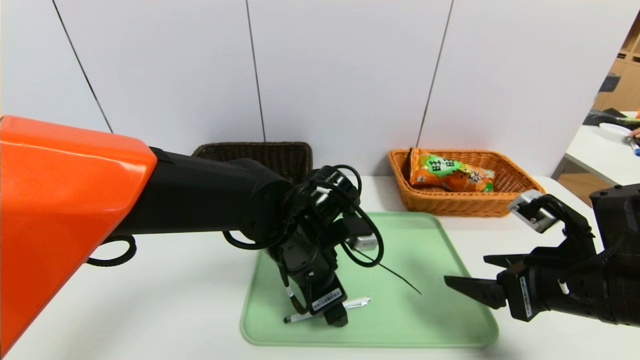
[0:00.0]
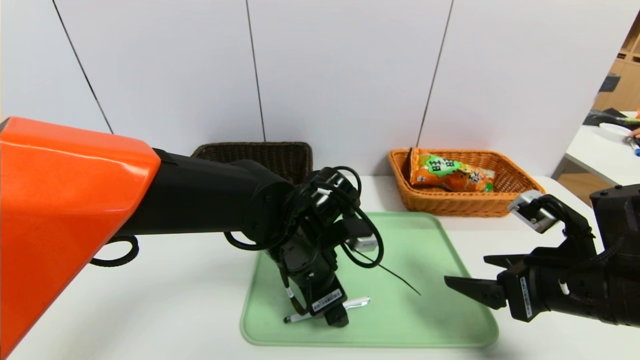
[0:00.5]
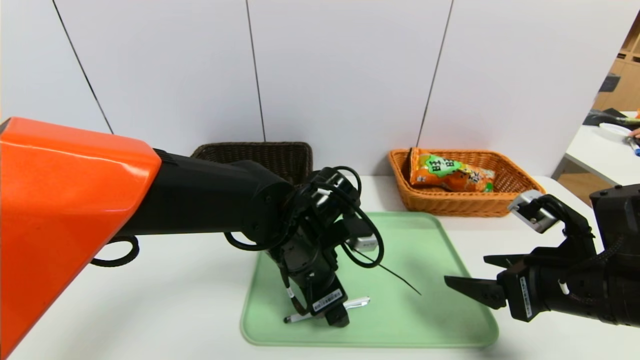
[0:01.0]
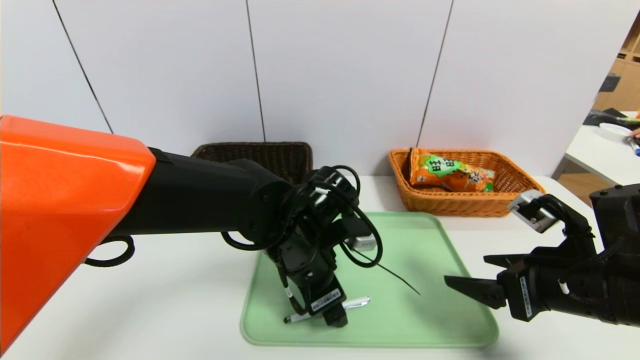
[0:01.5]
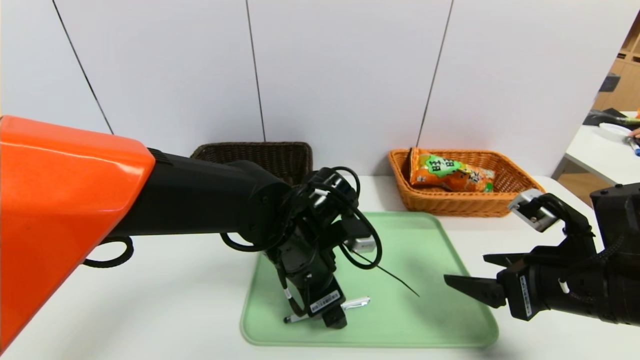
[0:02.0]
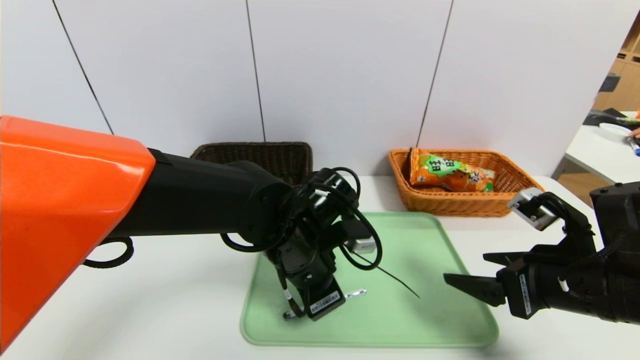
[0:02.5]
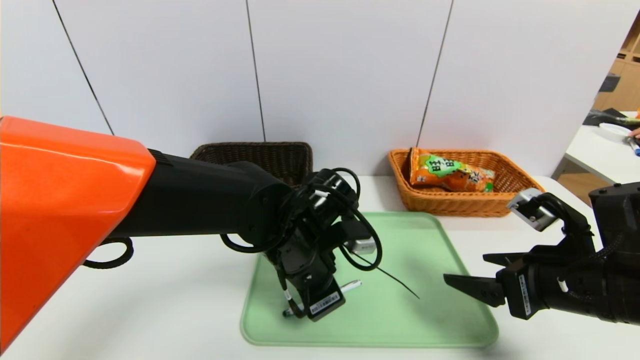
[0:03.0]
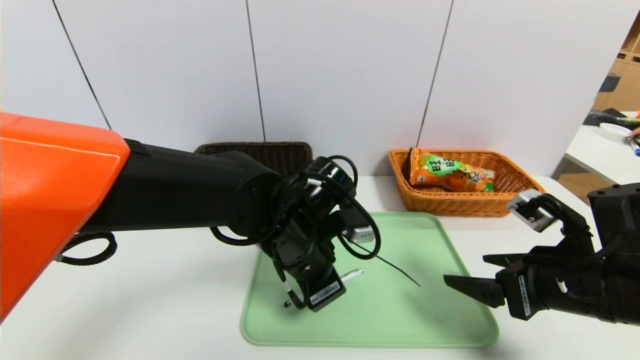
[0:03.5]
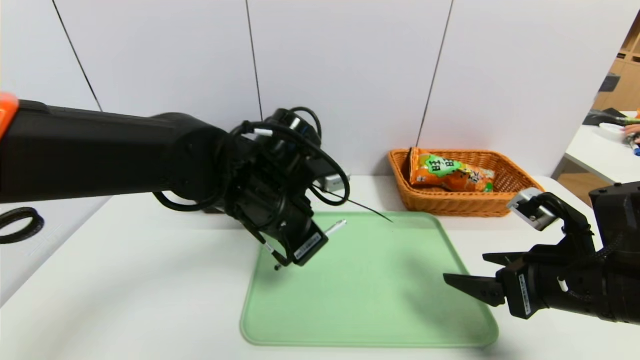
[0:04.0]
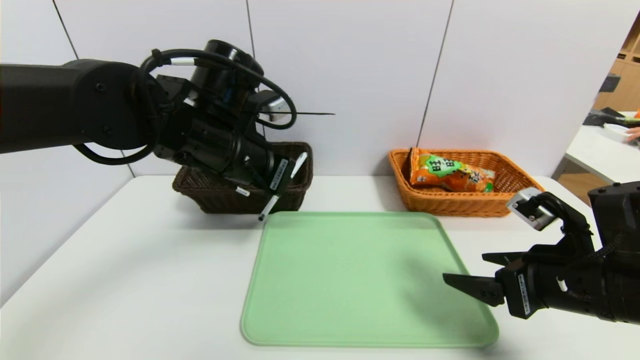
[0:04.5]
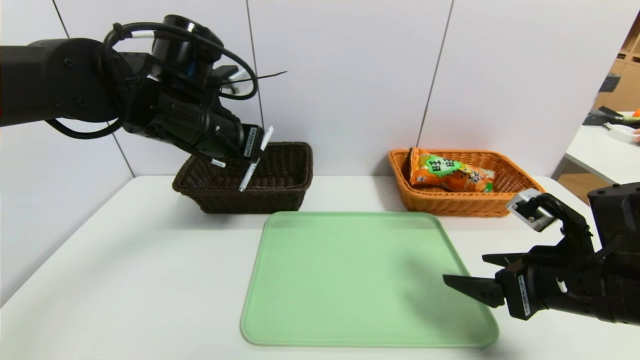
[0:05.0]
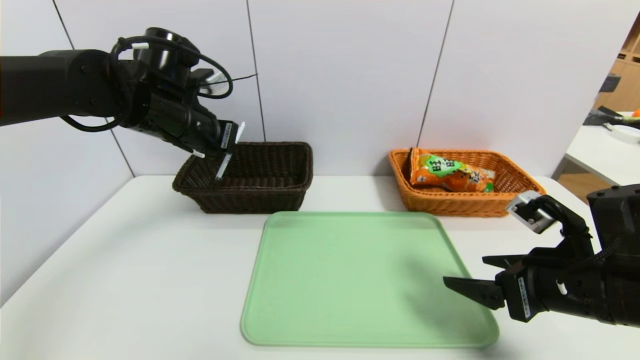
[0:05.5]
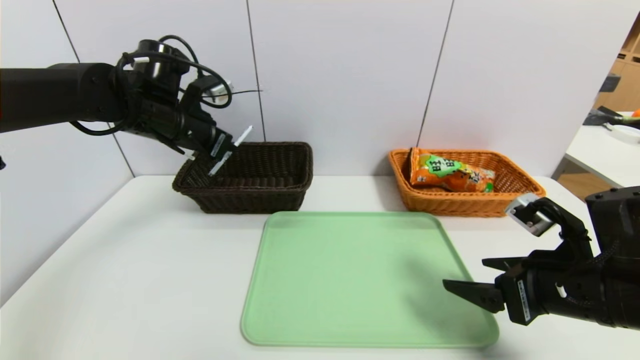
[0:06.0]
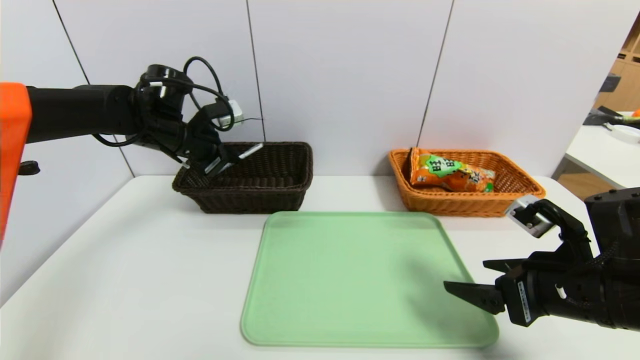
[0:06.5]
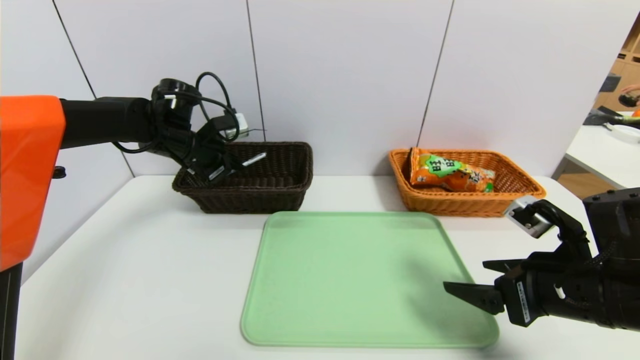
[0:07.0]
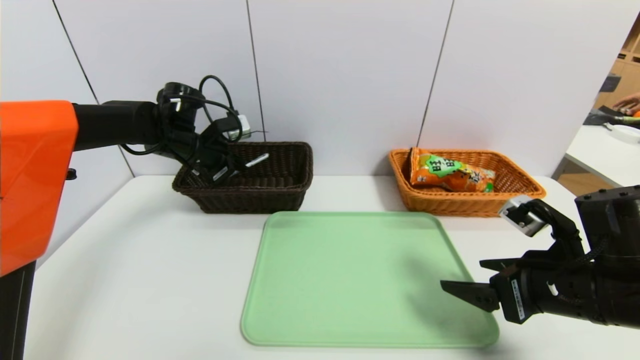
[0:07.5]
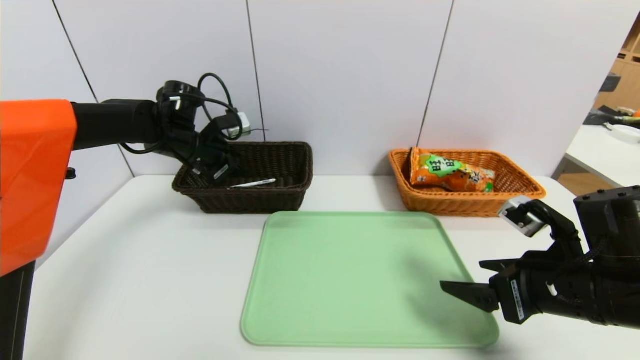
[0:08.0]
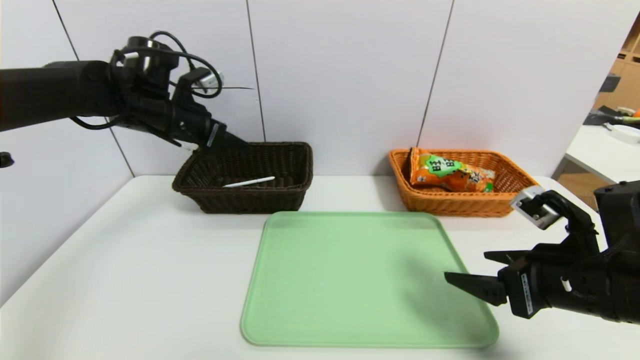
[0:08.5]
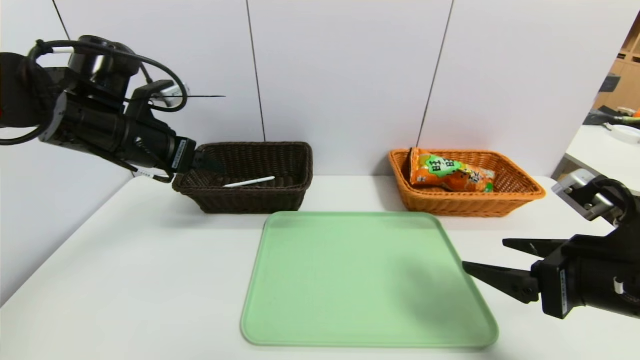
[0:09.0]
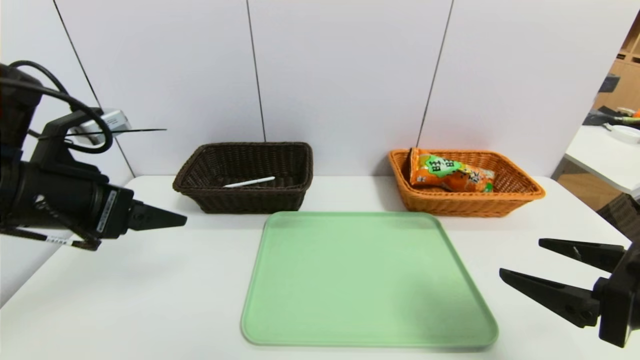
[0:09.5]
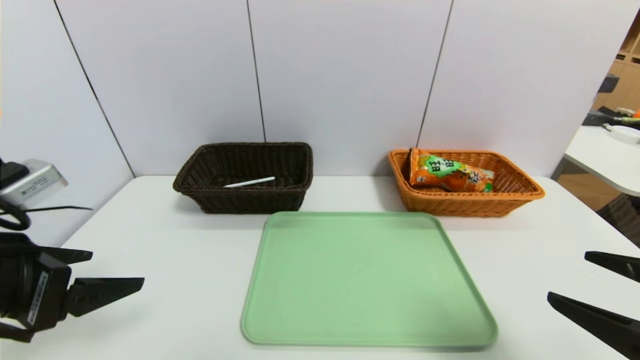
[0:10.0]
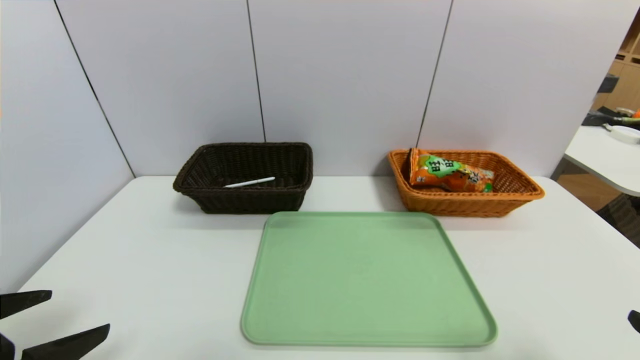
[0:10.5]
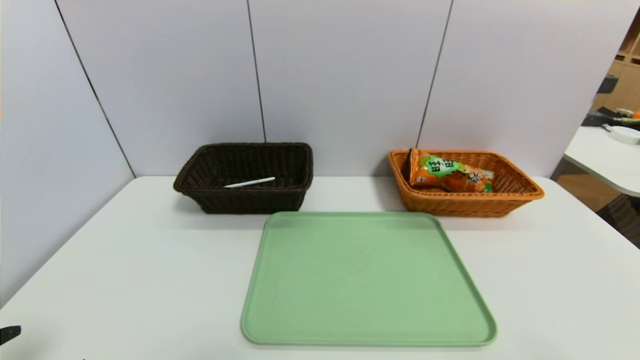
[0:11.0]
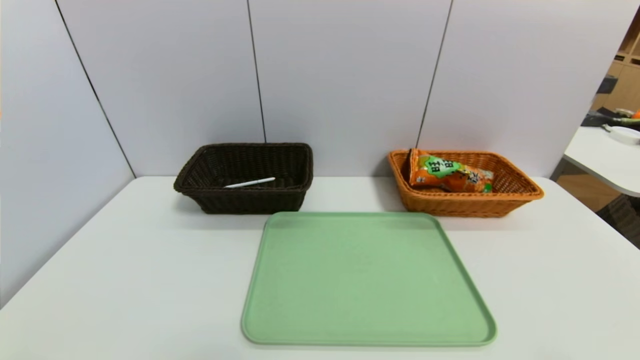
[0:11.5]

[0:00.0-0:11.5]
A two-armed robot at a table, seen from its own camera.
Task of the whole recording: place the food in the right basket with the right gripper, and place the non food items in the left basket with the left gripper.
Step, 0:00.0 to 0:08.0: Grasp the black marker and put it in the left basket.
0:00.0 to 0:02.0: Both grippers stay about where they are.
0:02.0 to 0:04.0: The left gripper goes some 5 cm upward, and closes.
0:04.0 to 0:06.0: The left gripper shifts about 20 cm to the left and forward.
0:06.0 to 0:07.5: The left gripper travels downward and forward by some 10 cm.
0:07.5 to 0:09.5: The right gripper shifts about 10 cm backward and upward. The left gripper goes some 25 cm backward, and opens its fingers.
0:09.5 to 0:11.5: The left gripper travels backward and downward by about 25 cm. The right gripper travels backward by roughly 15 cm.

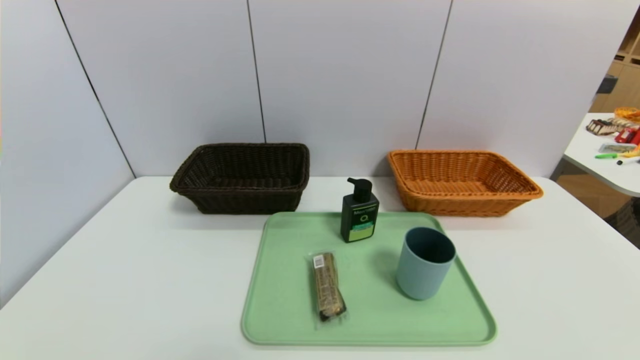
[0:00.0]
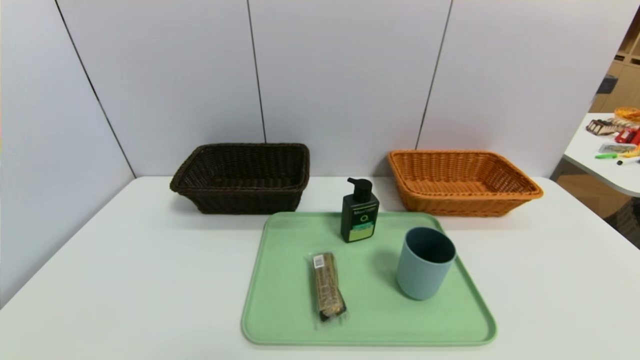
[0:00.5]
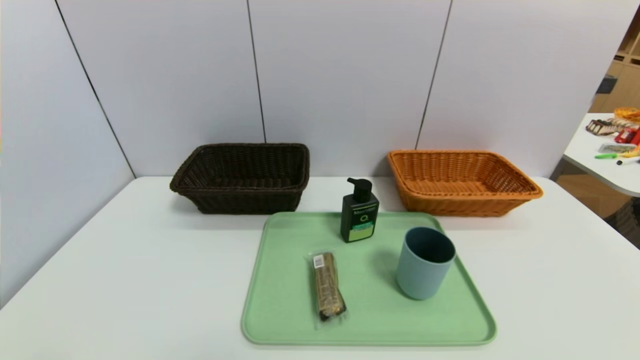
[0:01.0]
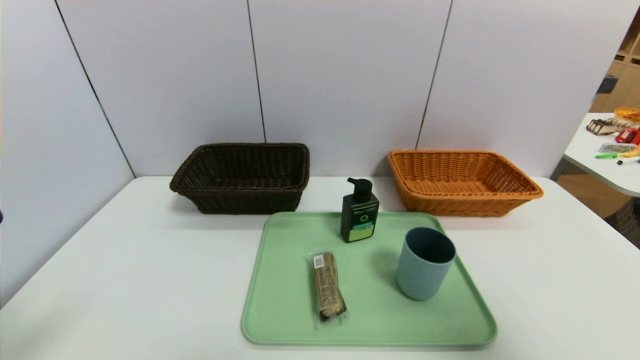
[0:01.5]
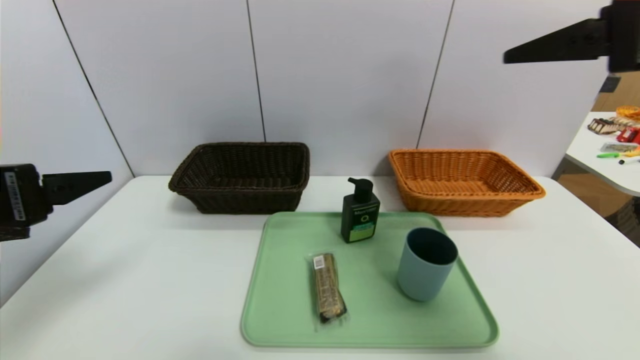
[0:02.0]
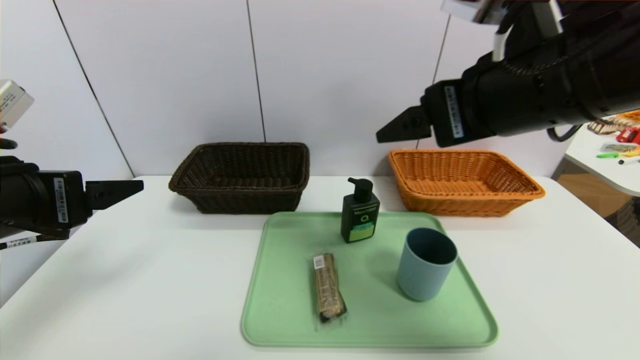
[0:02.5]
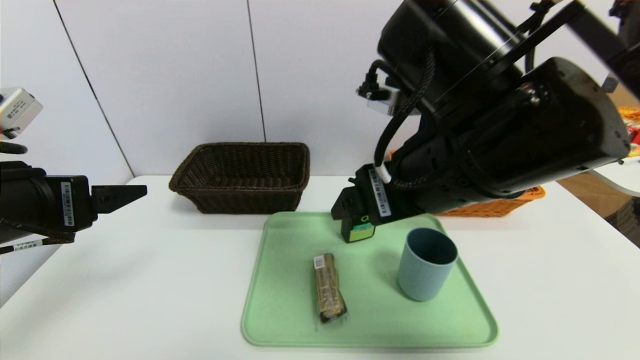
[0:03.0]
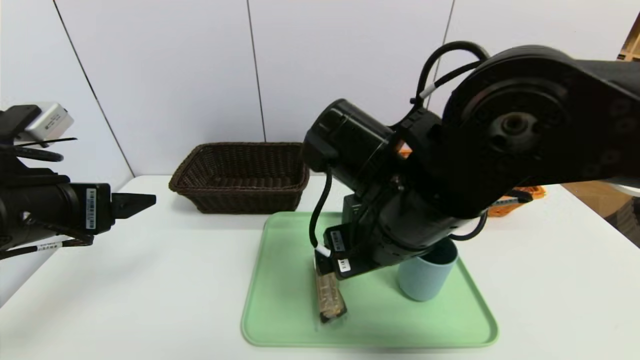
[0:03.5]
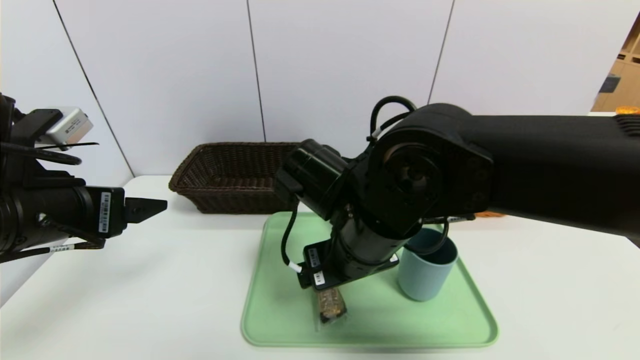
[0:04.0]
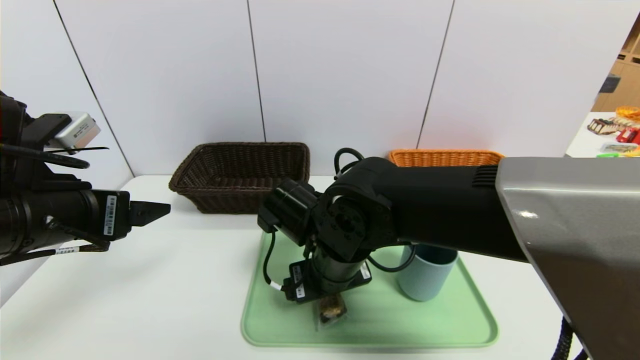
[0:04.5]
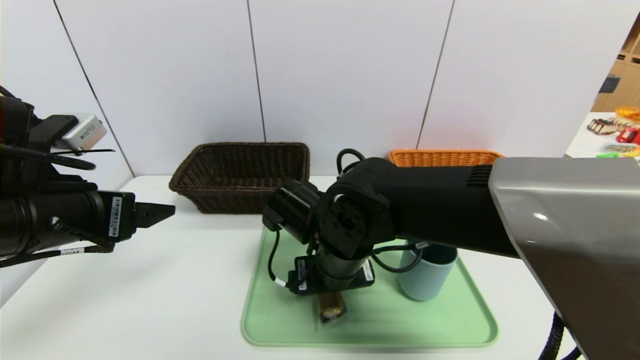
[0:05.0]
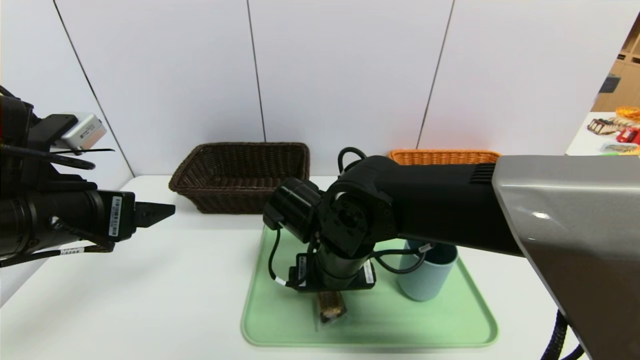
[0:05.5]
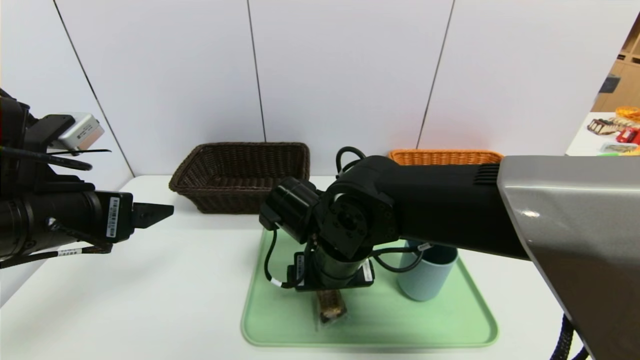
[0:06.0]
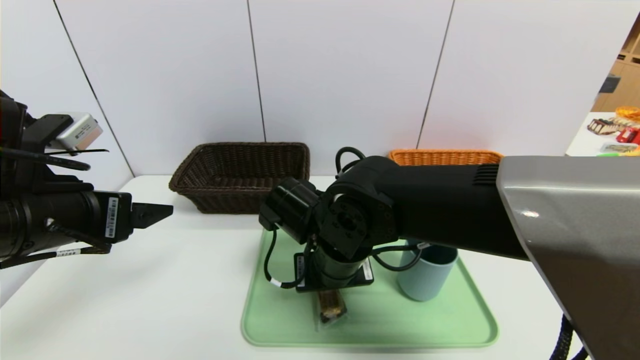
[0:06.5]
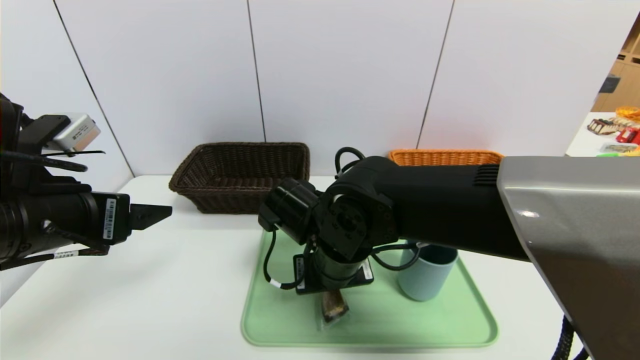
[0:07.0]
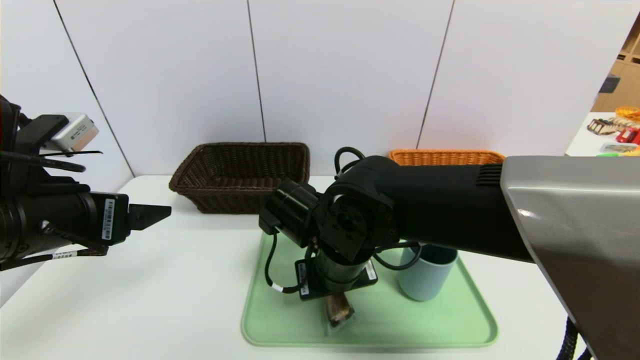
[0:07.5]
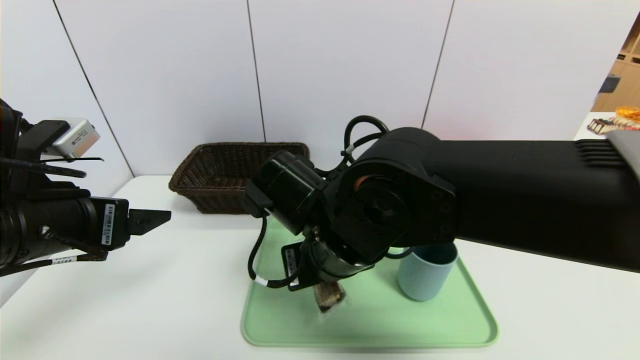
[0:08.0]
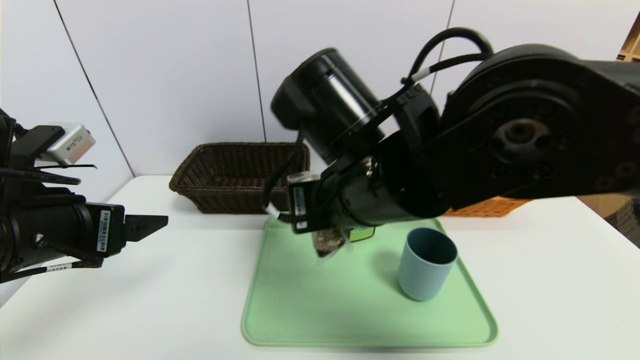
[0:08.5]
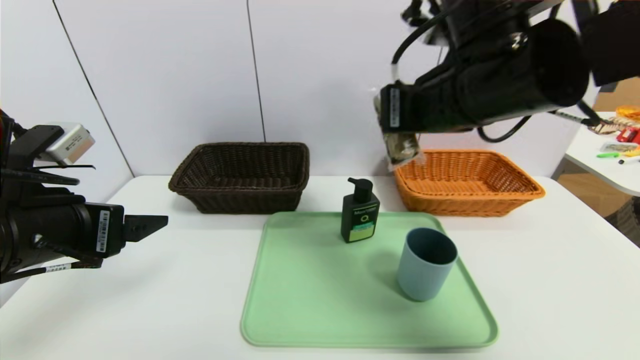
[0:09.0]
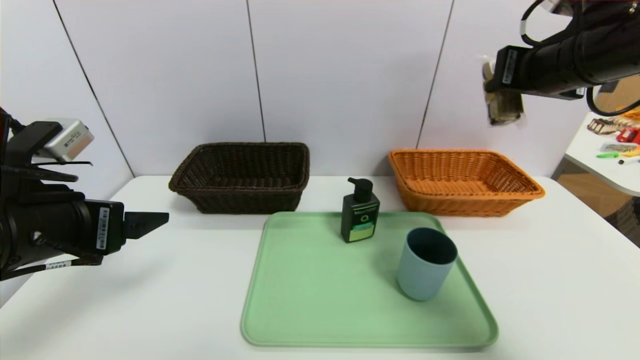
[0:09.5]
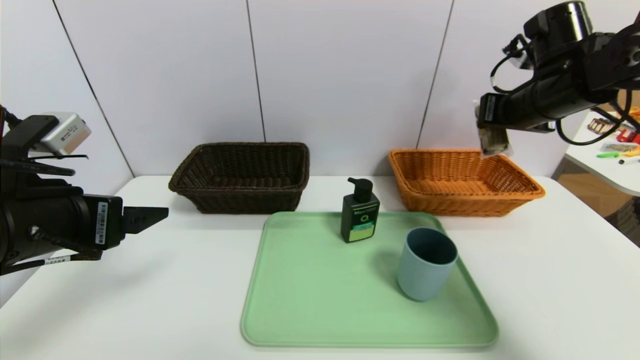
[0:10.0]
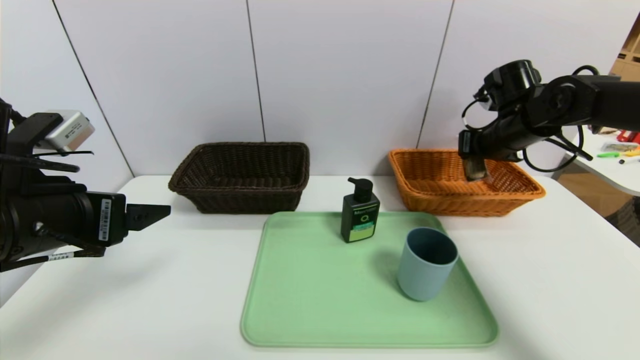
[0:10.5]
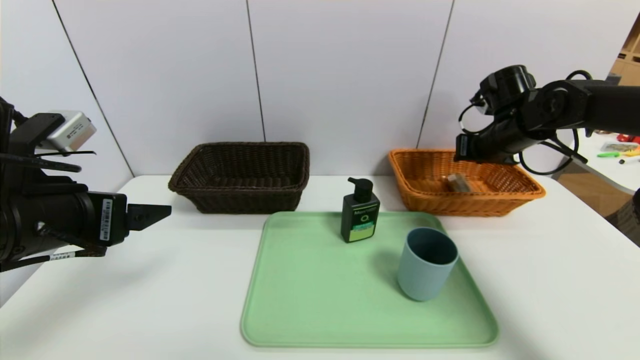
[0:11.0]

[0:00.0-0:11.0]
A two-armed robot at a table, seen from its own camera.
Task of the whole recording: place the food in the right basket with the right gripper, and place the non food items in the left basket with the left gripper.
0:00.0 to 0:02.0: The grippers both shift upward and forward by approximately 30 cm.
0:02.0 to 0:03.5: The left gripper ends up some 5 cm from where it was, while the right gripper goes roughly 25 cm to the left and downward.
0:03.5 to 0:05.5: The right gripper shifts roughly 10 cm downward and to the left.
0:05.5 to 0:07.5: The right gripper closes.
0:07.5 to 0:09.0: The right gripper goes some 25 cm upward and to the right.
0:09.0 to 0:11.0: The right gripper travels to the right, forward and downward by approximately 25 cm, and opens its fingers.
